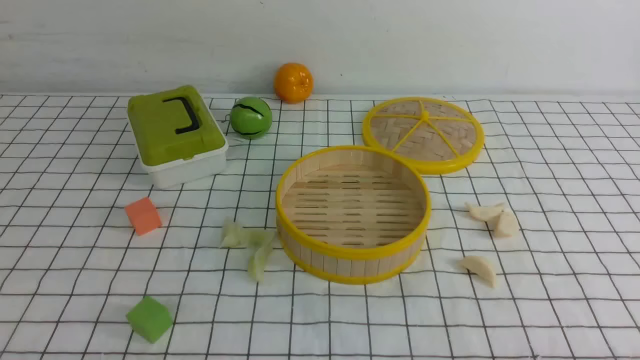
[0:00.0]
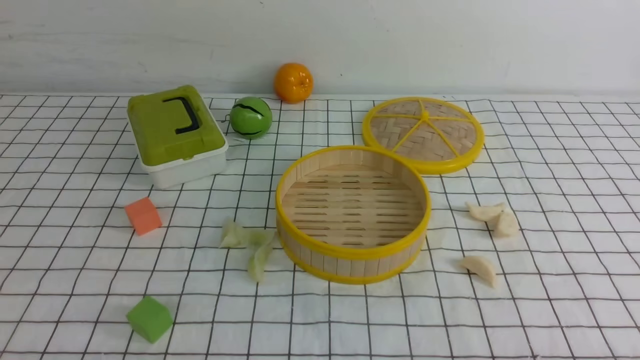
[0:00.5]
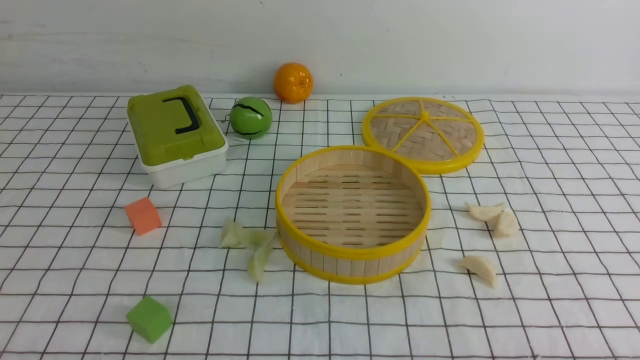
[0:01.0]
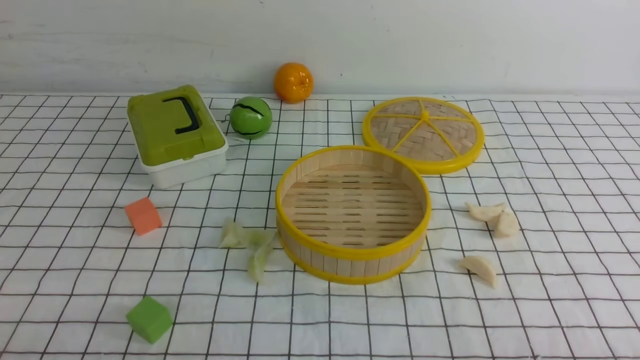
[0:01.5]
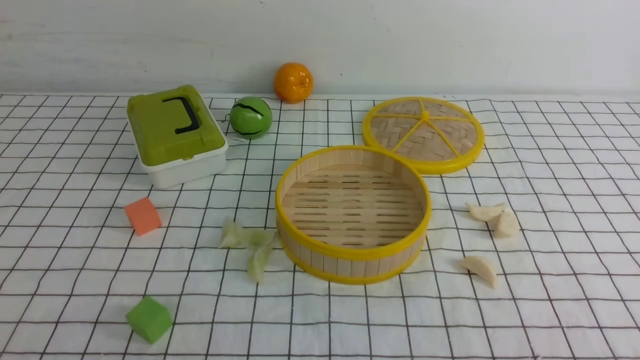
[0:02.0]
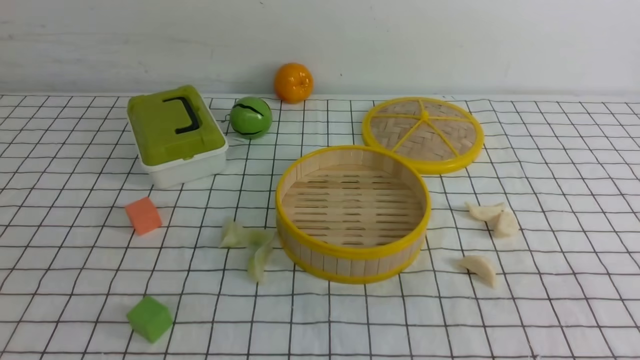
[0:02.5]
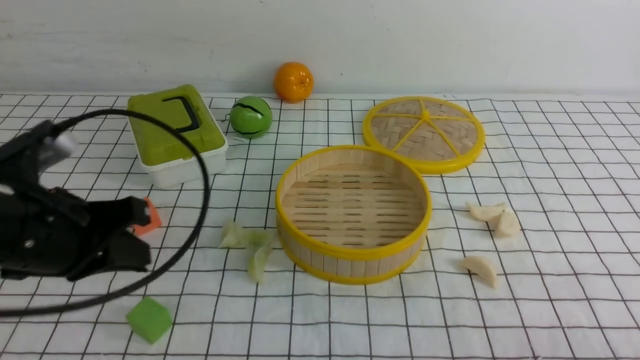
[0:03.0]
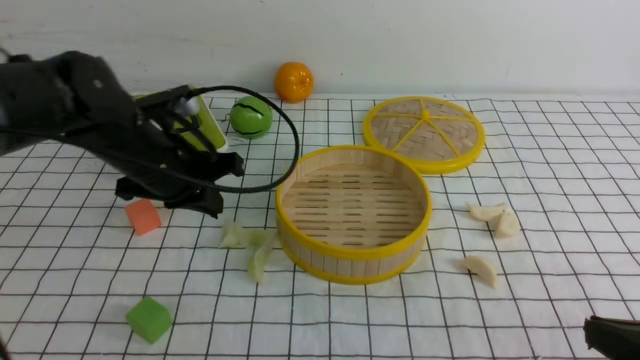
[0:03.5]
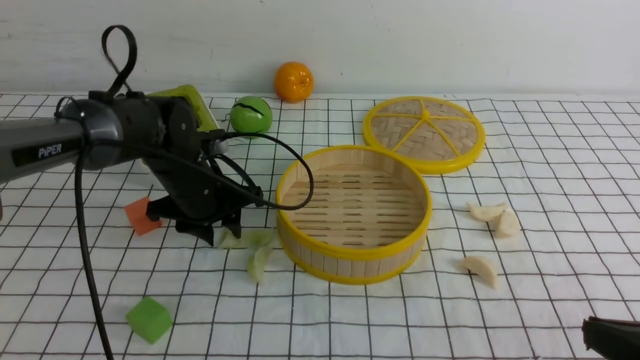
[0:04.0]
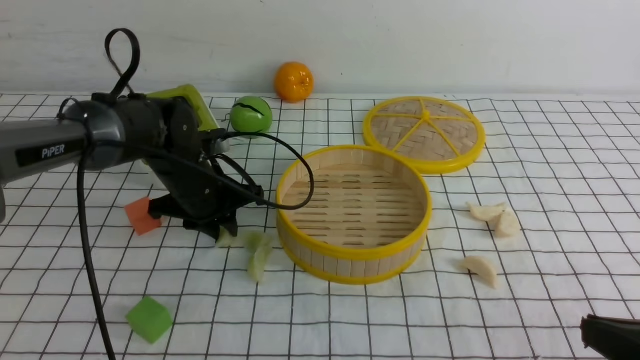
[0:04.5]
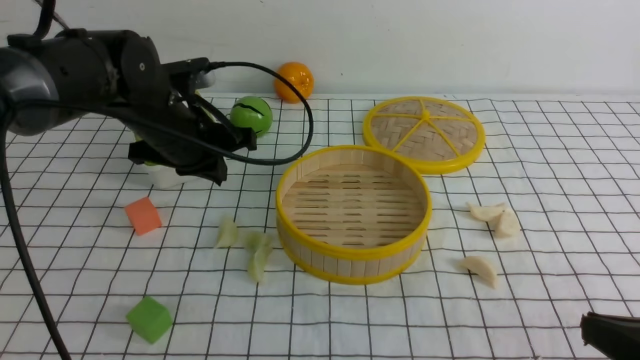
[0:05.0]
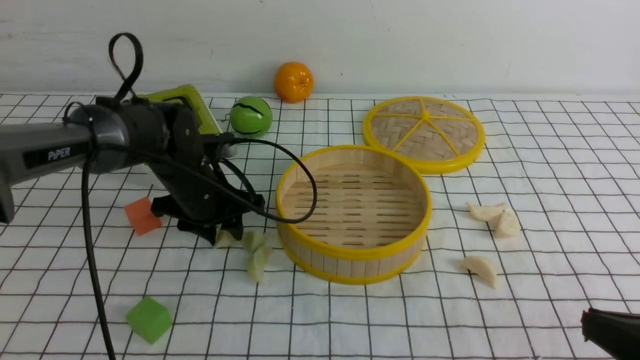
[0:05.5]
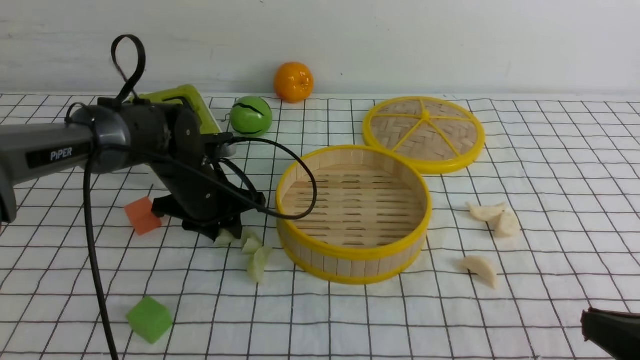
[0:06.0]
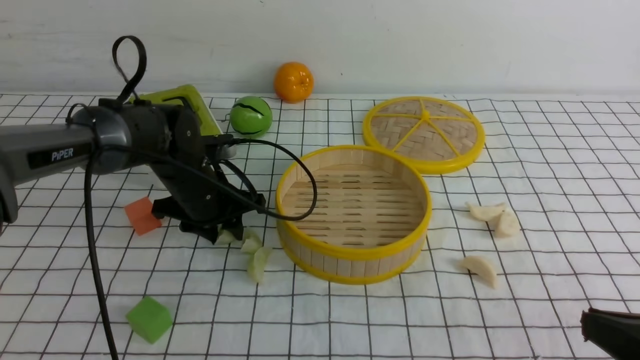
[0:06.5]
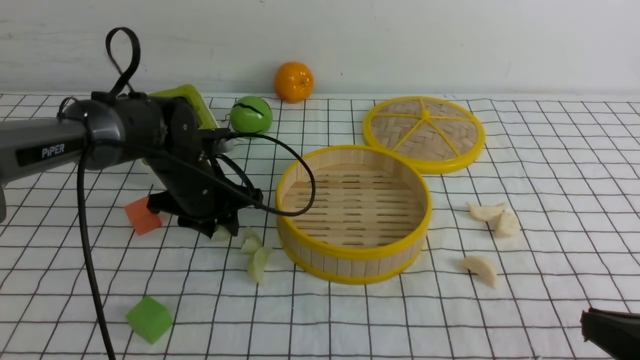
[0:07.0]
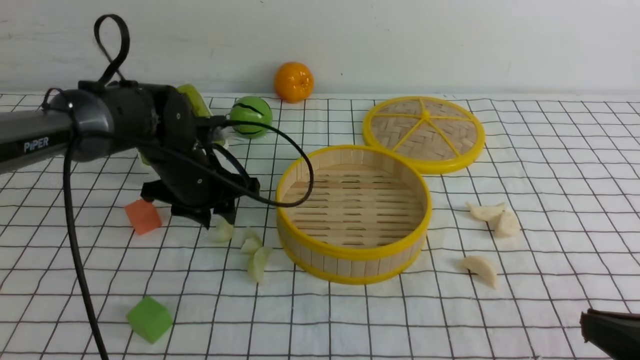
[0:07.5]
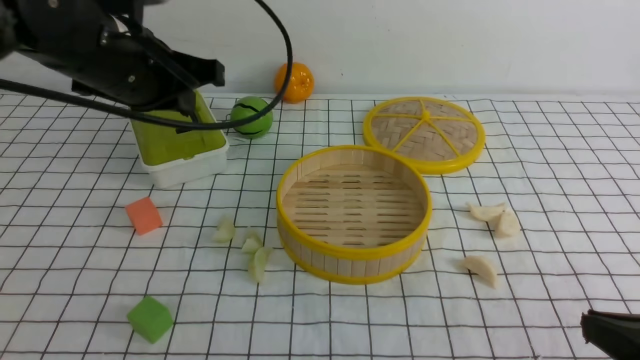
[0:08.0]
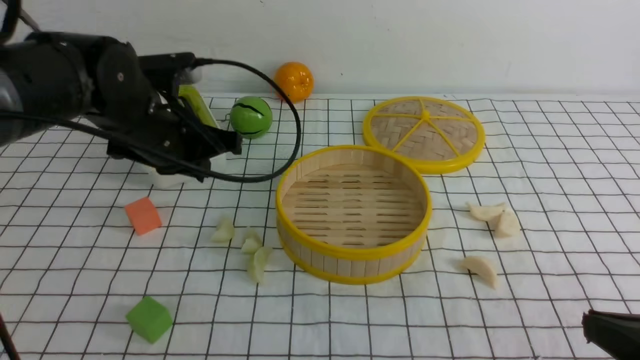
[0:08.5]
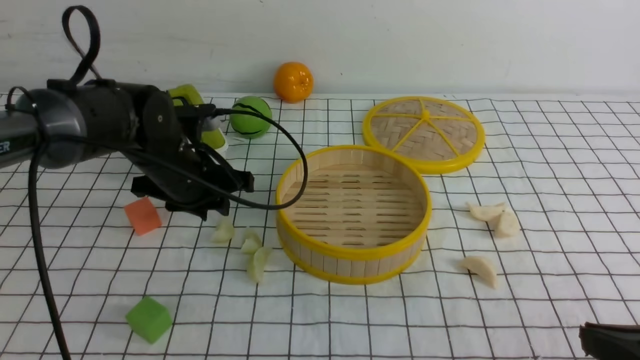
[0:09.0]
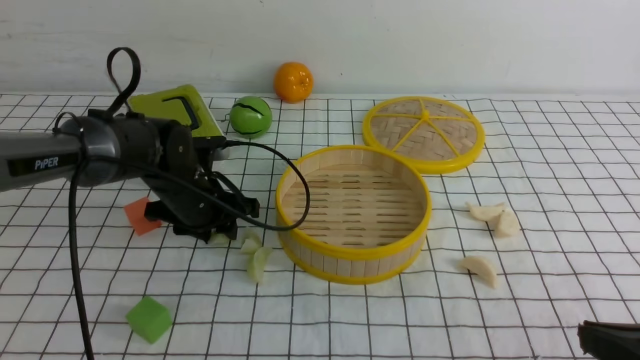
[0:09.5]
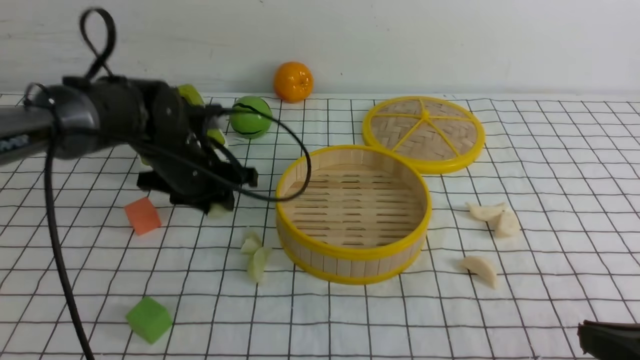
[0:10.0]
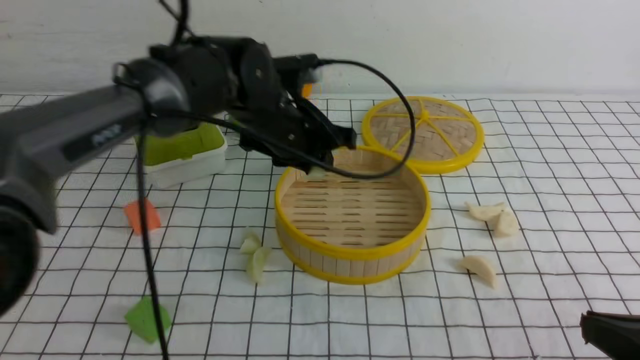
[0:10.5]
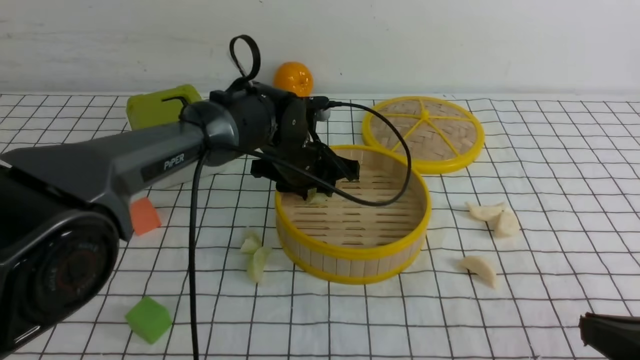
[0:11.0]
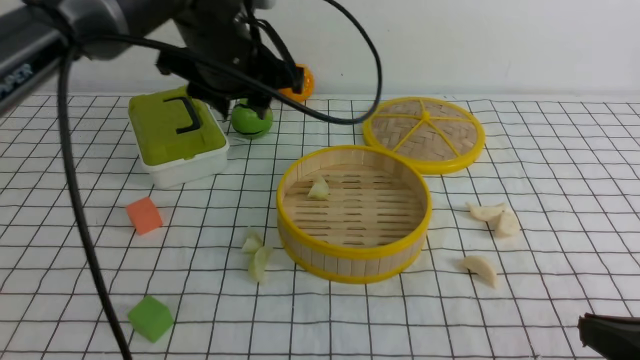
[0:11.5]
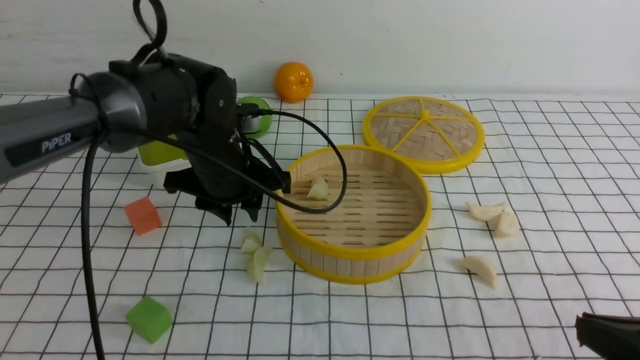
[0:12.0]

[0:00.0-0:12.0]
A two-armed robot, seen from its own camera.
Task of the whole recording: put the dumplings into the steamer on the table with the white tablecloth.
Step, 0:00.0 to 0:09.5: use the left arm to grab a dumpling.
Step, 0:10.0 to 0:11.0: use the left arm to put the dumpling into the steamer.
0:02.0 to 0:04.0: The right gripper goes some 10 cm forward; the left gripper goes some 35 cm forward, and opens its fingers.
0:04.0 to 0:06.0: The left gripper goes upward and returns, roughly 5 cm each way, and closes, then opens again.
0:06.0 to 0:08.0: The left gripper shifts roughly 15 cm upward, and closes up.
0:08.0 to 0:10.0: The left gripper moves downward and forward, some 10 cm, and opens its fingers.
0:10.0 to 0:12.0: The left gripper goes to the right and returns, roughly 10 cm each way.

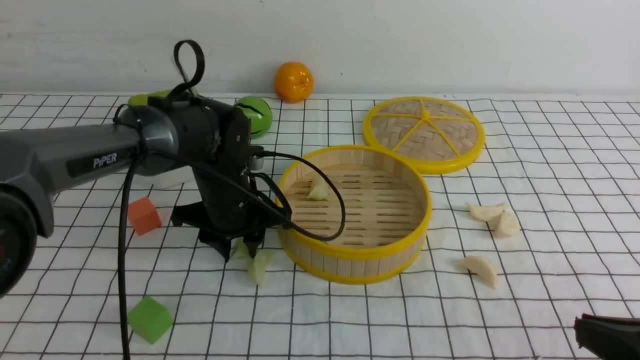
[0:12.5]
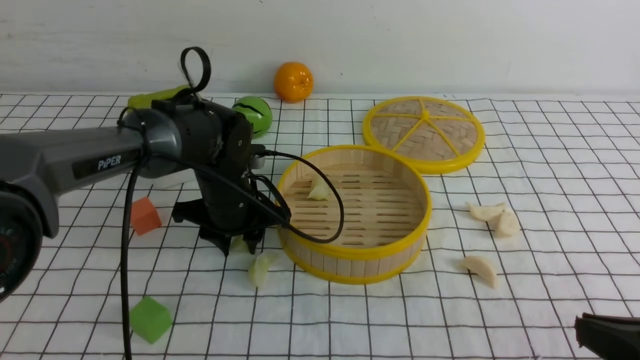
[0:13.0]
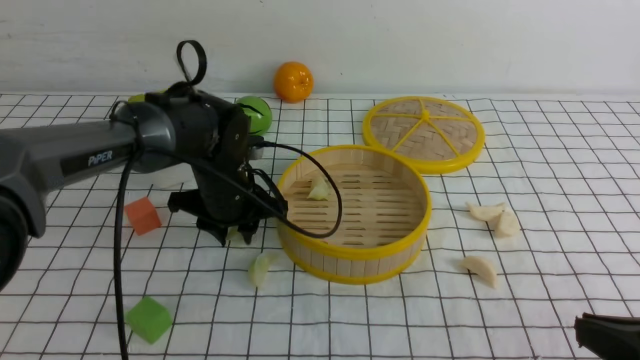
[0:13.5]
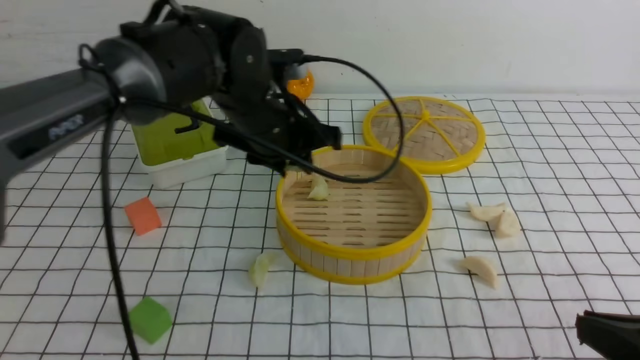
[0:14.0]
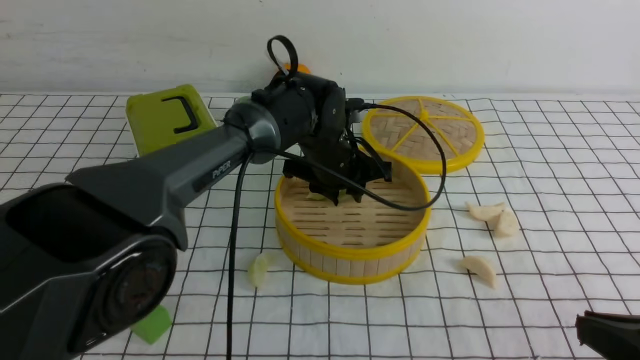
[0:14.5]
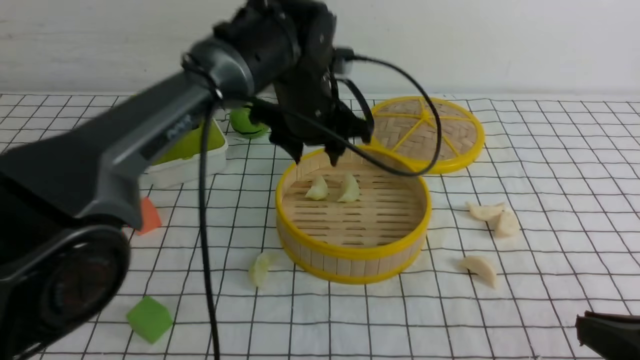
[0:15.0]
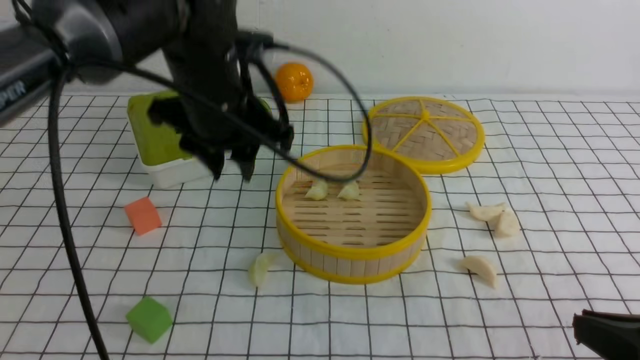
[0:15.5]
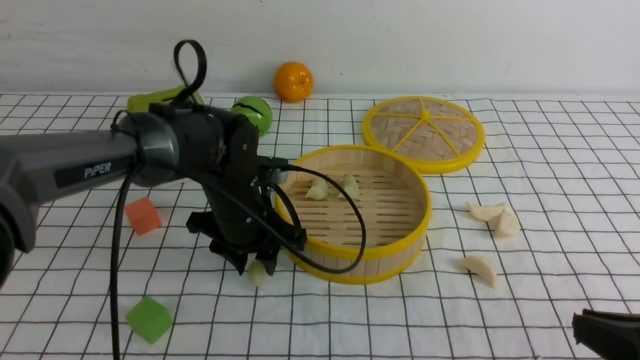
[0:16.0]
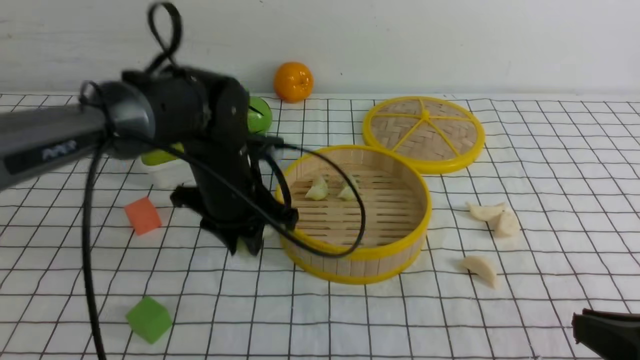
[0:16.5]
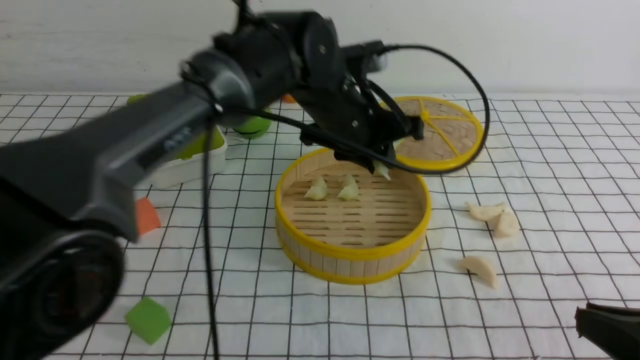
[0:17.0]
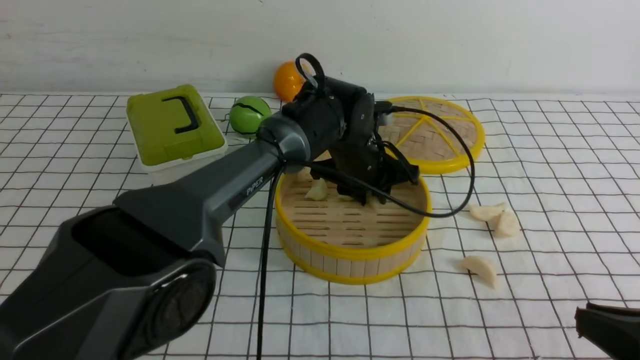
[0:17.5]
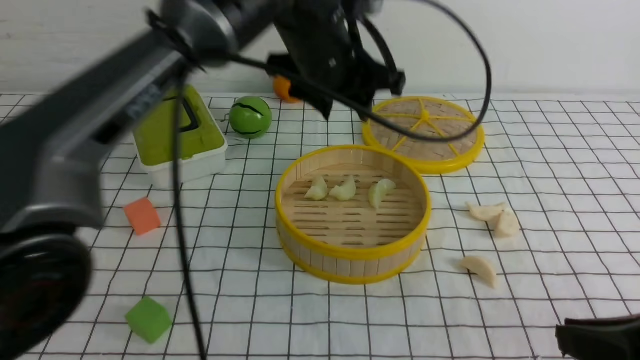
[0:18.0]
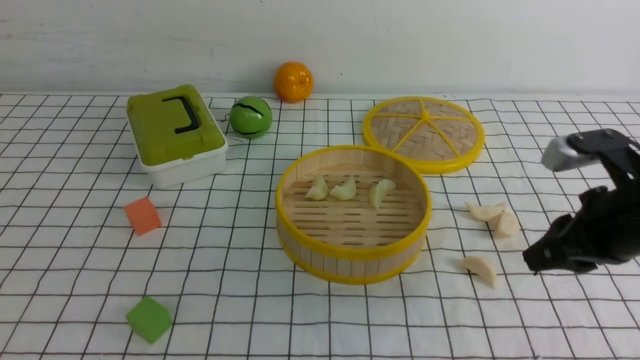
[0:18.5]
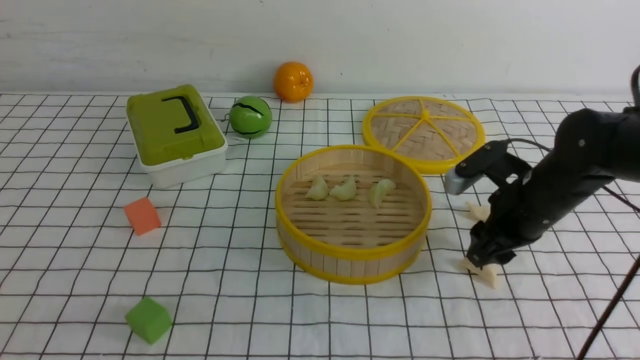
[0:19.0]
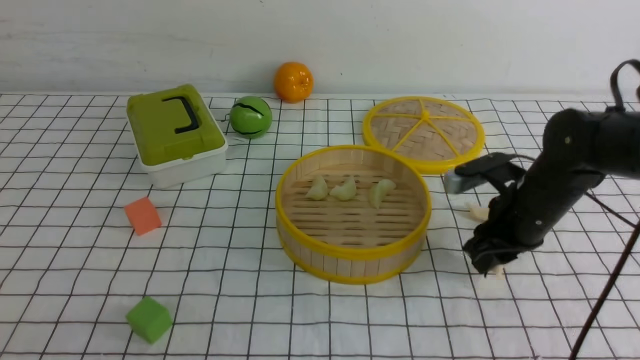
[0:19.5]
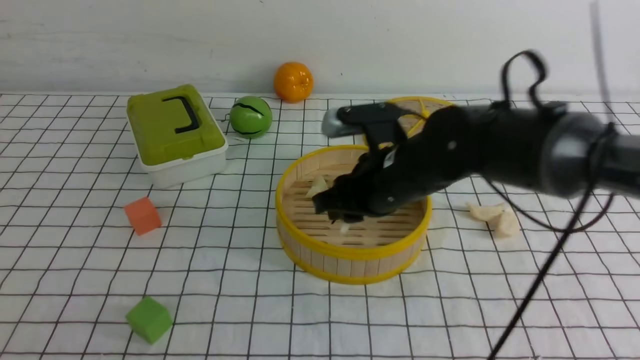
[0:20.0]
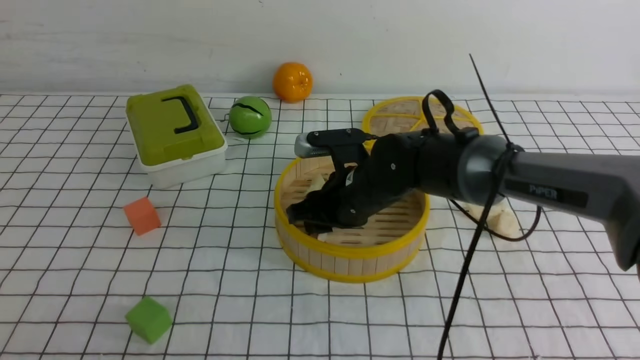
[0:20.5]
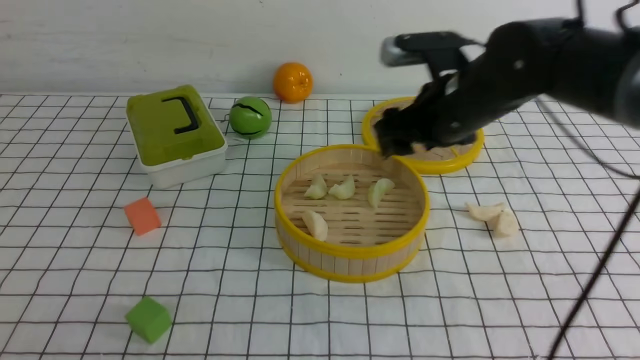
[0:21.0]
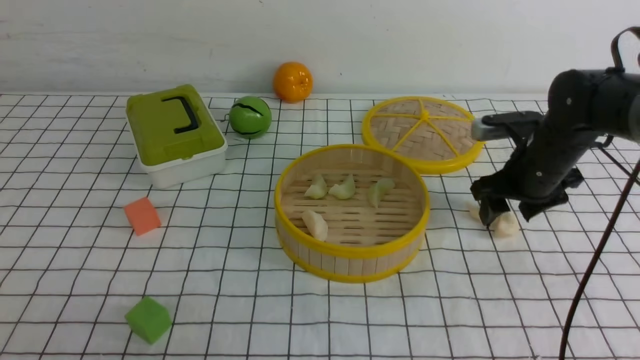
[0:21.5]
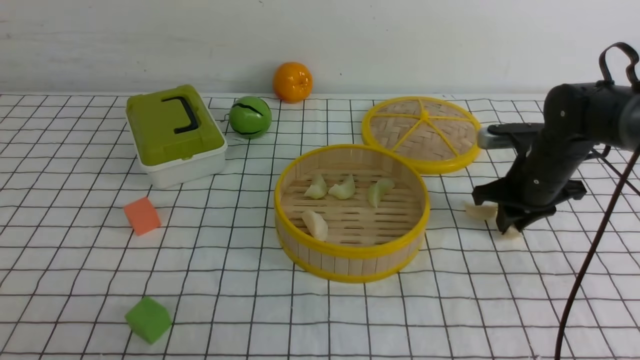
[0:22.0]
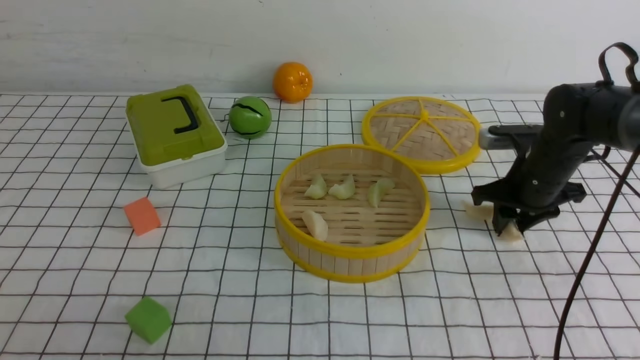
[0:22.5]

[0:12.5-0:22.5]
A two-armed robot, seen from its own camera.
Task of the whole recording: put the dumplings into the steamer on the table with the white tablecloth.
Step, 0:13.0 to 0:15.0: use the left arm to put the dumpling into the steamer.
Step, 0:15.5 to 0:16.0: use the left arm to grab a dumpling.
Step, 0:16.5 to 0:17.5: use the left arm to put the dumpling into the steamer.
Step, 0:18.0 to 0:19.0: use the right arm to grab a dumpling.
Step, 0:19.5 to 0:20.5: use the right arm to put the dumpling into the steamer.
0:12.5 to 0:14.5: The left gripper goes approximately 10 cm to the right.
0:14.5 to 0:16.5: The left gripper swings up and down, about 15 cm each way, with 2 reversals.
0:16.5 to 0:18.5: The right gripper moves forward, about 15 cm, while the left gripper goes about 35 cm upward and backward, and closes up.
0:18.5 to 0:20.5: The right gripper heads to the left and forward, covering approximately 25 cm. The left gripper shifts some 25 cm downward.
0:20.5 to 0:22.5: The right gripper travels to the right by some 20 cm.
